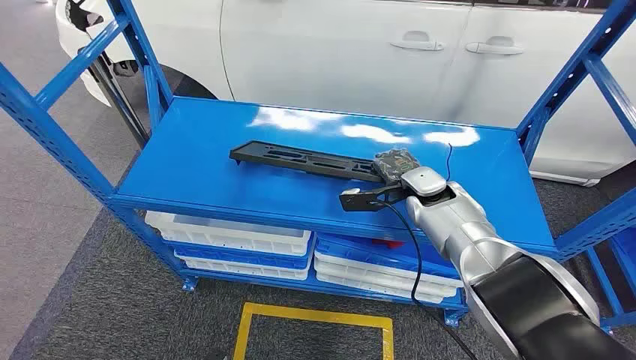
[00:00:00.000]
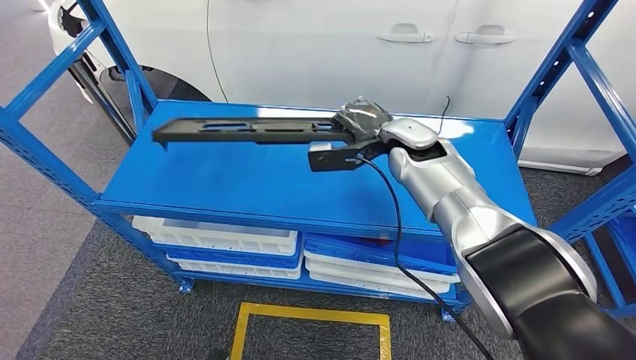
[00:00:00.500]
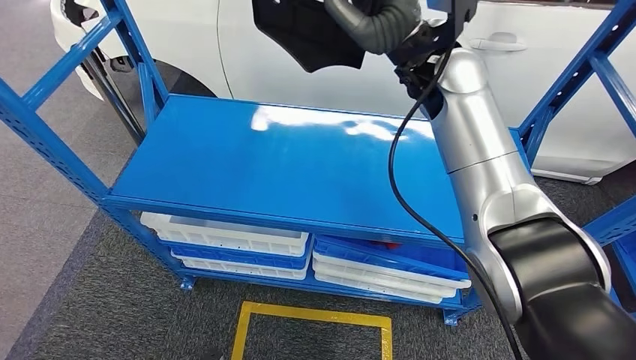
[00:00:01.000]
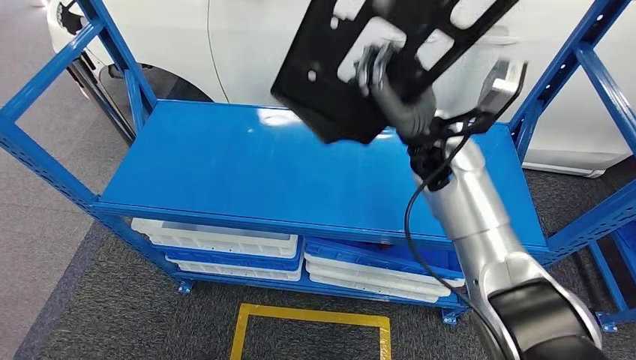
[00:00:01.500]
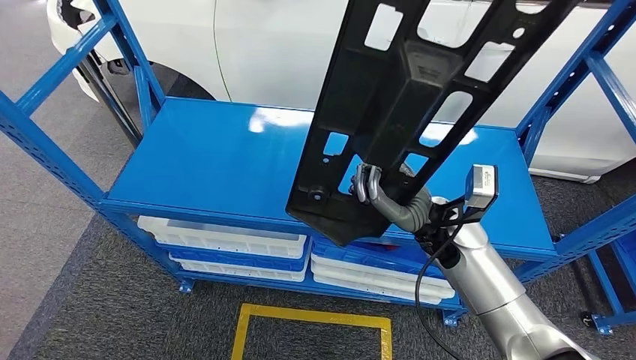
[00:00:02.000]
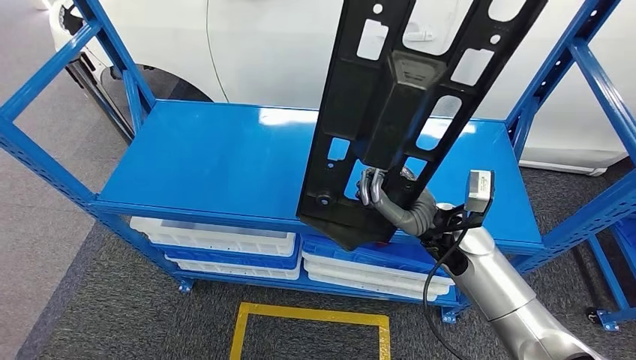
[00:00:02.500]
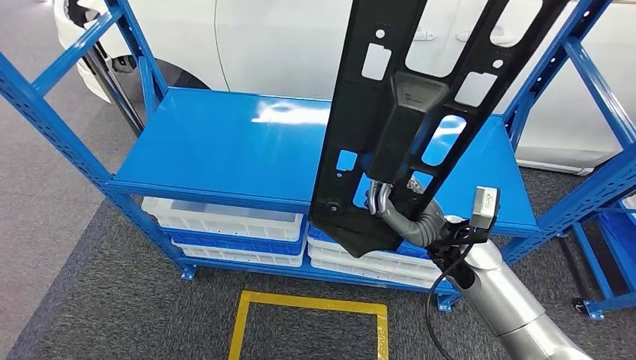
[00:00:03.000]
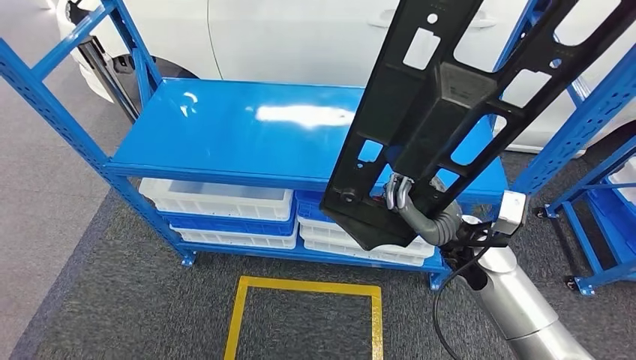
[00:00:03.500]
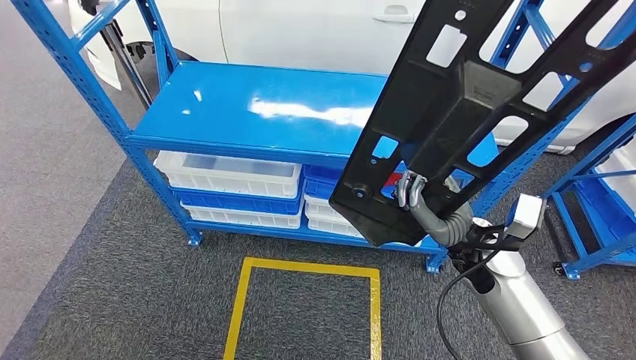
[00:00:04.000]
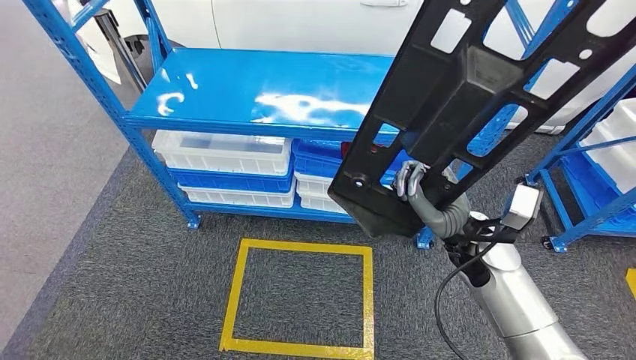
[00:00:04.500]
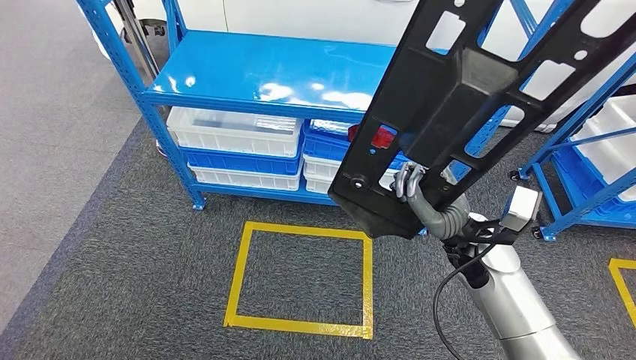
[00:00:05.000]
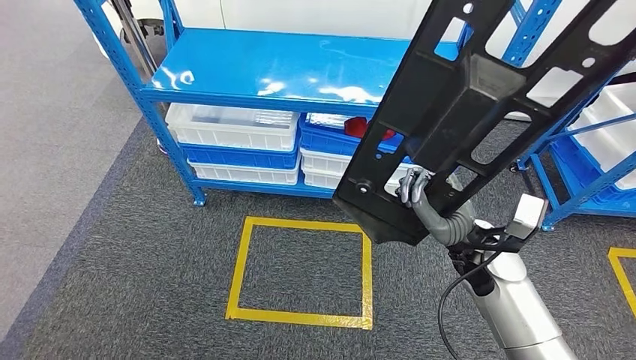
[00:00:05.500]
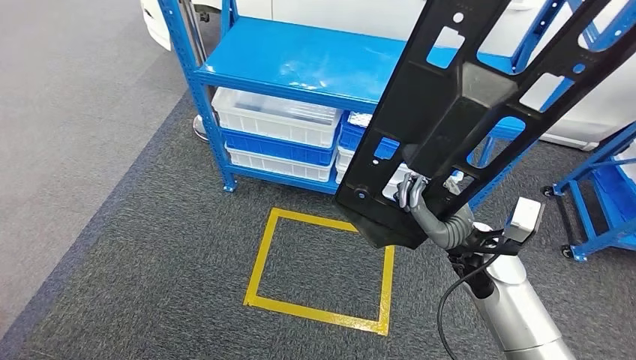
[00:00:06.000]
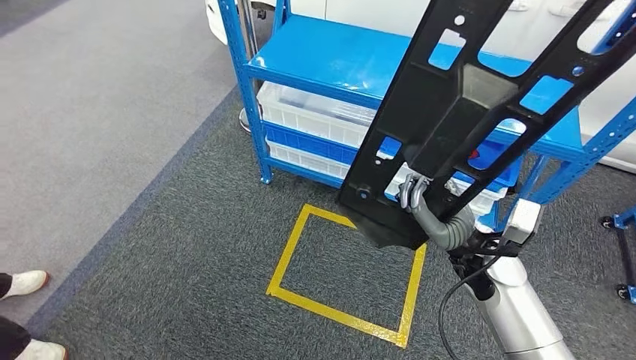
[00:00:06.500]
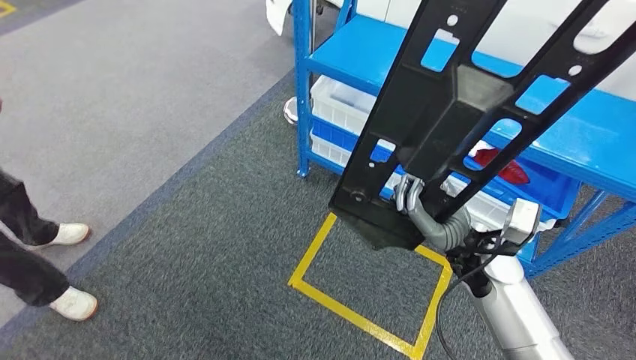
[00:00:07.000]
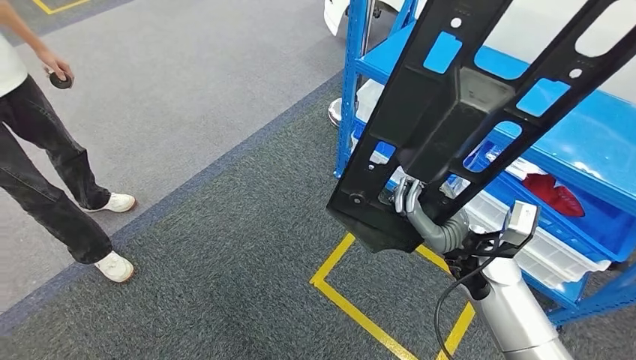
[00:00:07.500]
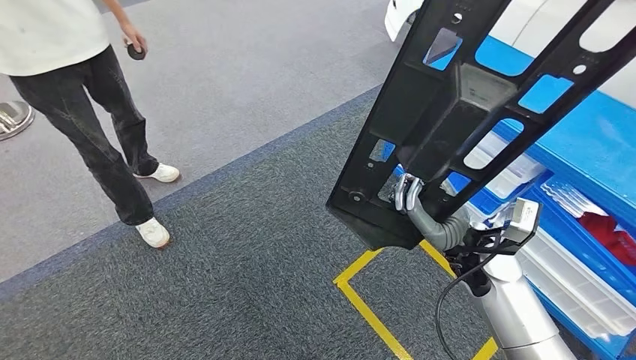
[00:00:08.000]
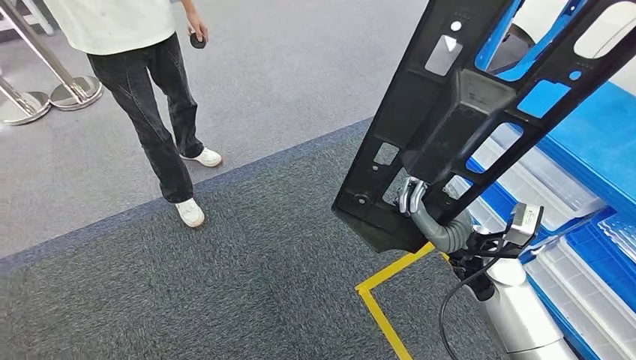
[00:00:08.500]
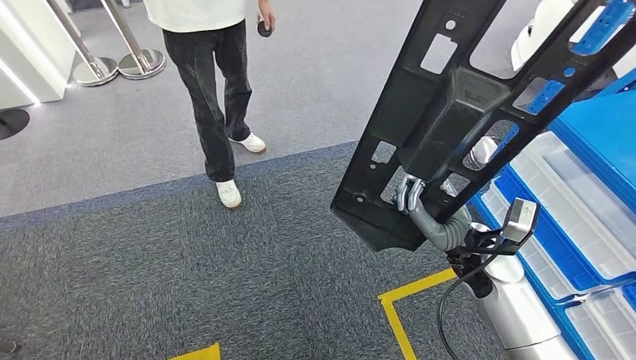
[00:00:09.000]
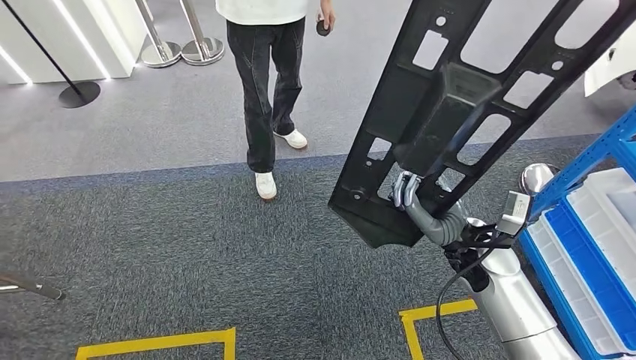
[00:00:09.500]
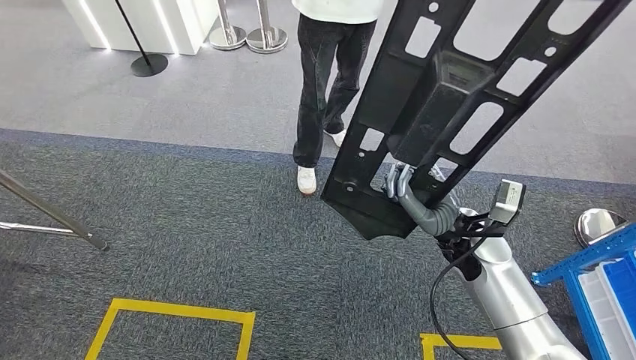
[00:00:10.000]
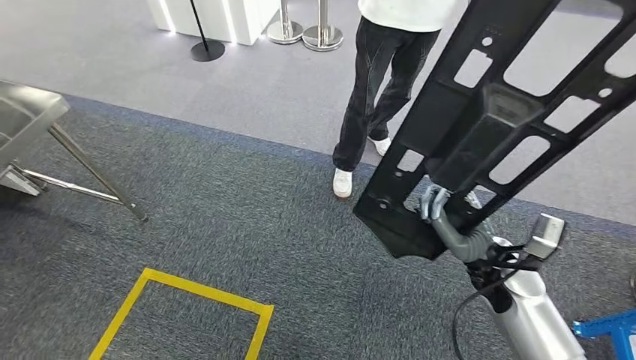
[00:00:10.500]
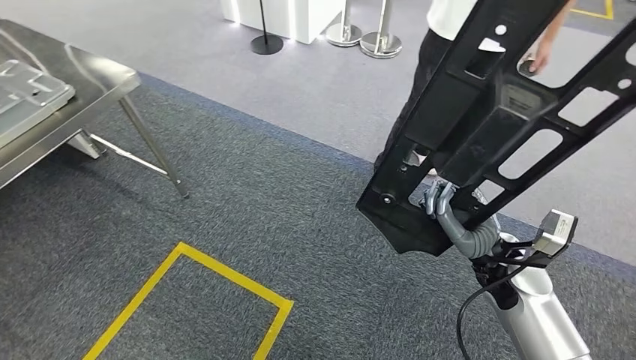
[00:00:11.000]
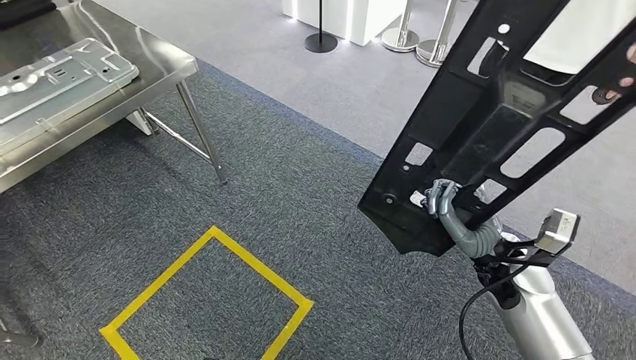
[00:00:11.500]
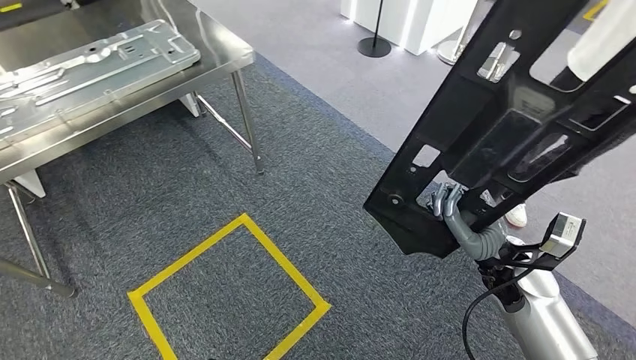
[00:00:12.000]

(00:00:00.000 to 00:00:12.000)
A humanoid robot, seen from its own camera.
Step, 00:00:00.000 - 00:00:03.000: Pick up the large material from the shelf.

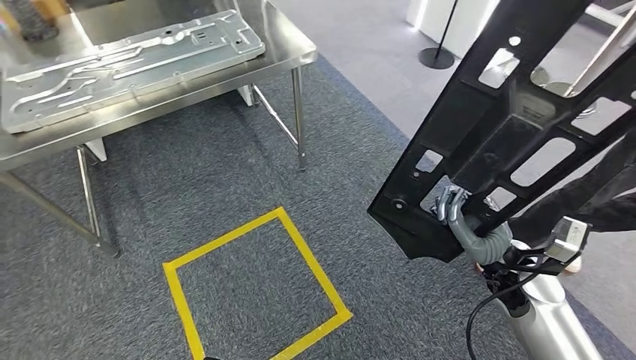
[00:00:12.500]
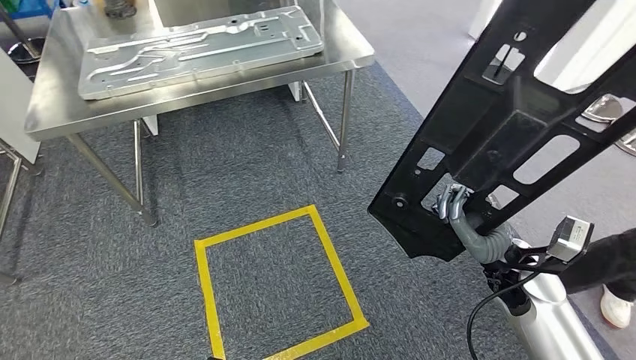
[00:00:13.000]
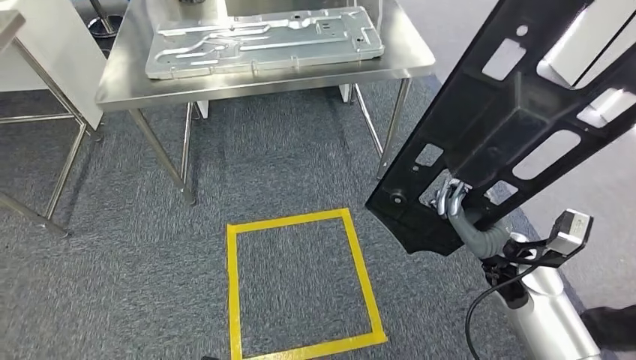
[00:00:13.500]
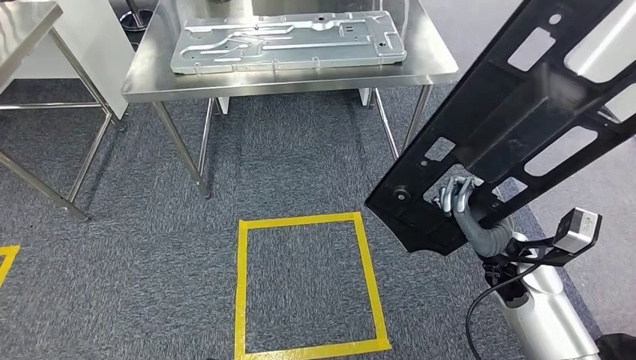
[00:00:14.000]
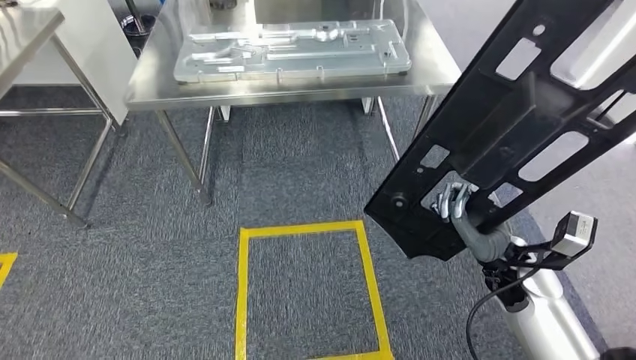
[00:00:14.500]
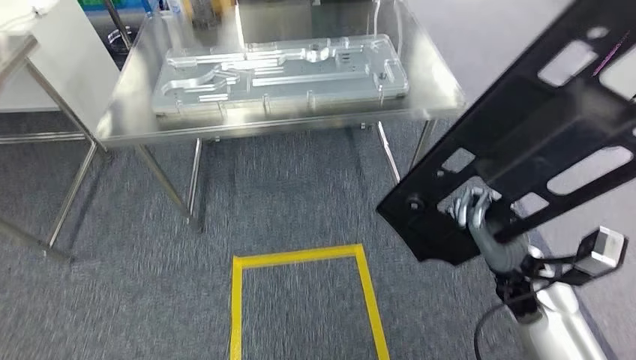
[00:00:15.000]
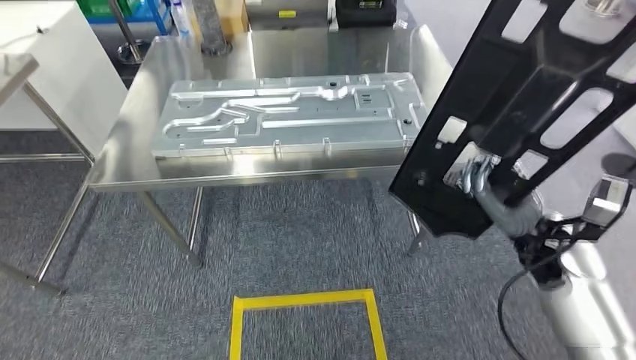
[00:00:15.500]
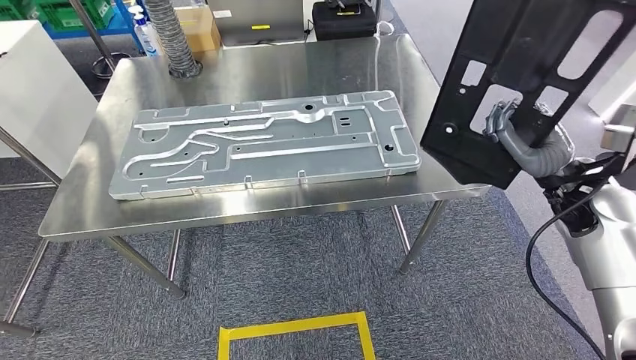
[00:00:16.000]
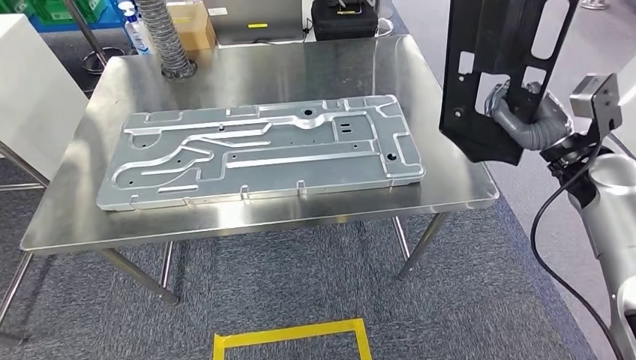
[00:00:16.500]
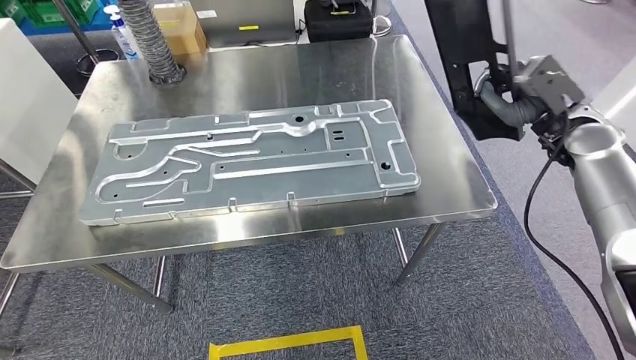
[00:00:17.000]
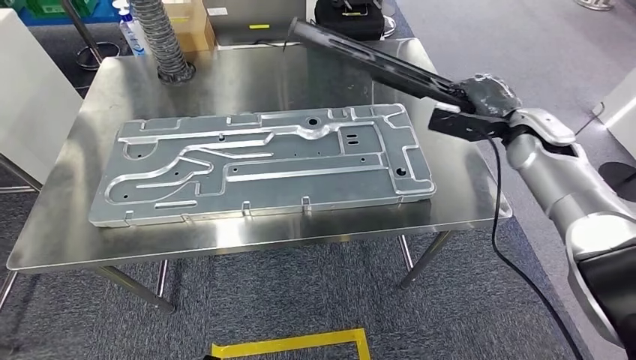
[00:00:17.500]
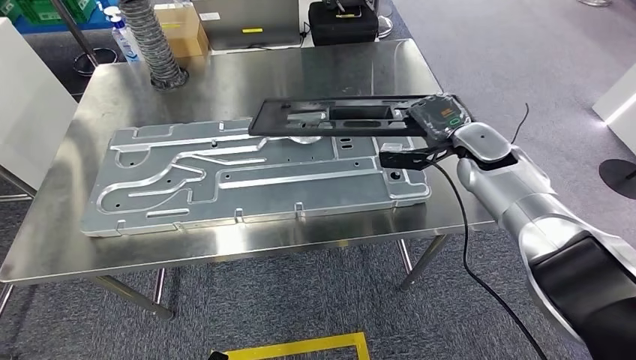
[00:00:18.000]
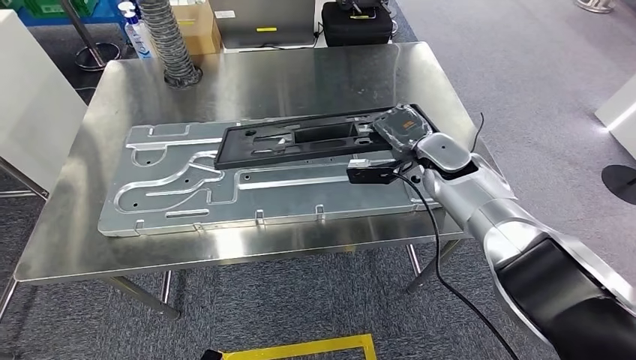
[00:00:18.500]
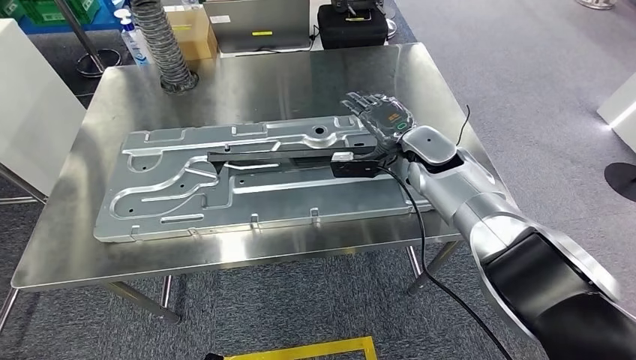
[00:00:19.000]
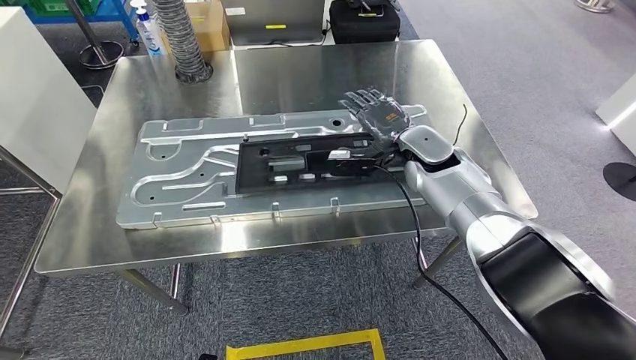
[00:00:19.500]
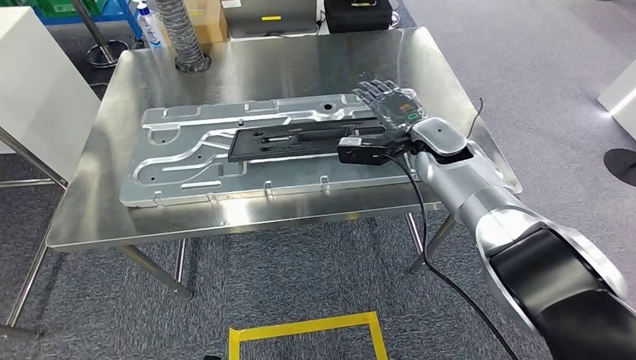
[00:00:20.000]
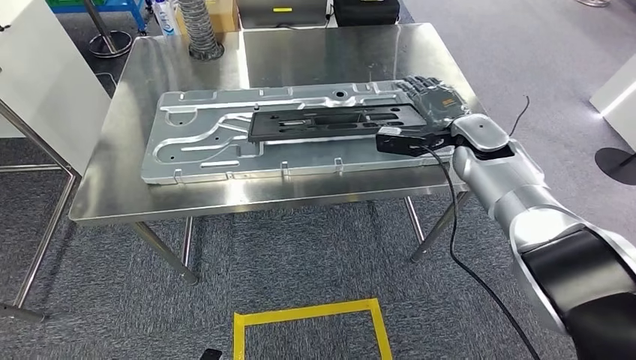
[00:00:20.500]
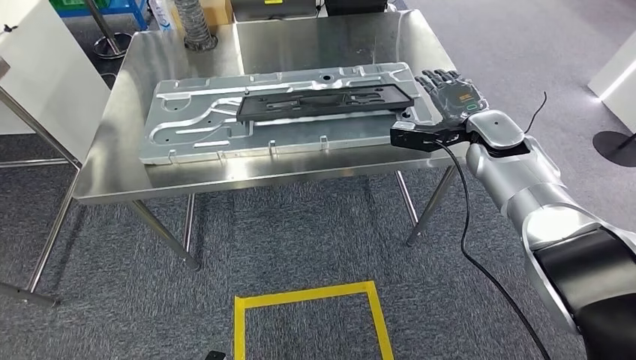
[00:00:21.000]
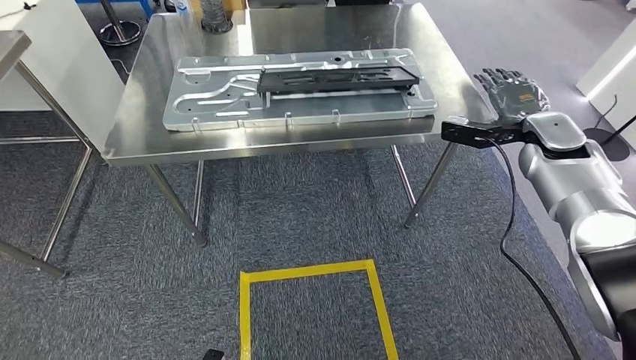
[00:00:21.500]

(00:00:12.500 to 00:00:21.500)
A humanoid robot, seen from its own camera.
Step, 00:00:12.500 - 00:00:16.500: Move the large material to the workbench.
Step, 00:00:18.000 - 00:00:20.000: Insert the large material into the corresponding slot on the workbench.
